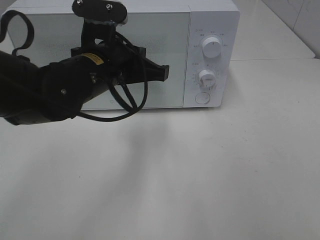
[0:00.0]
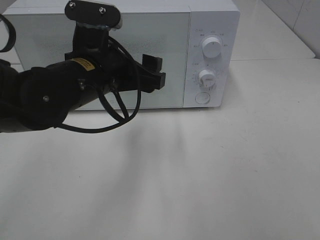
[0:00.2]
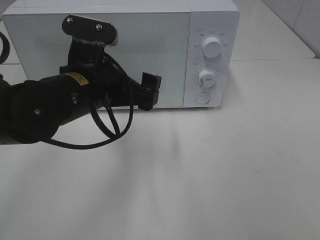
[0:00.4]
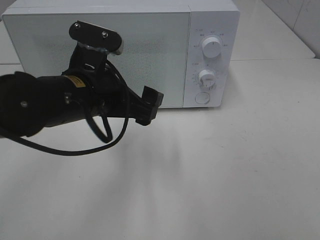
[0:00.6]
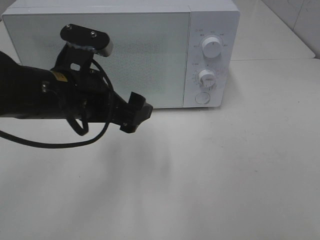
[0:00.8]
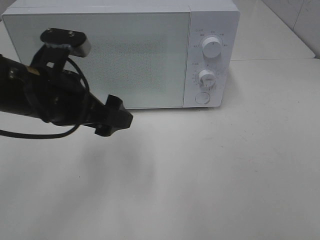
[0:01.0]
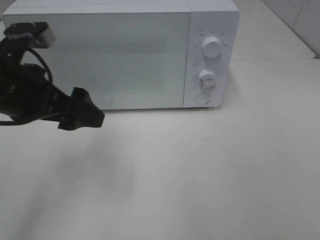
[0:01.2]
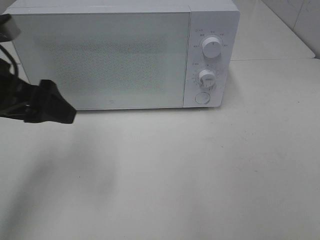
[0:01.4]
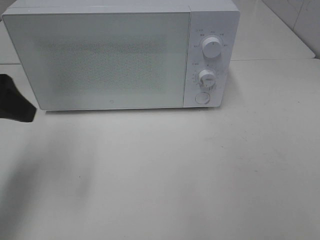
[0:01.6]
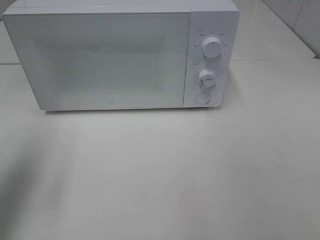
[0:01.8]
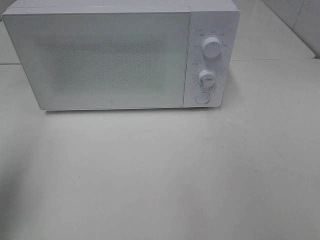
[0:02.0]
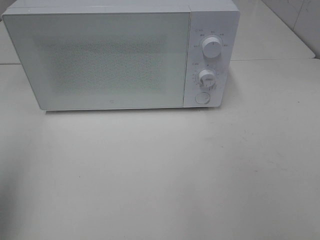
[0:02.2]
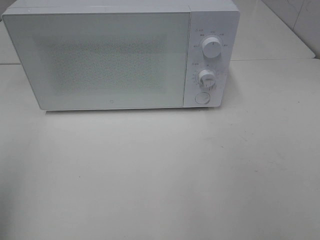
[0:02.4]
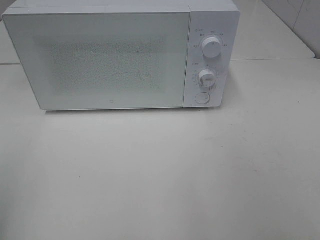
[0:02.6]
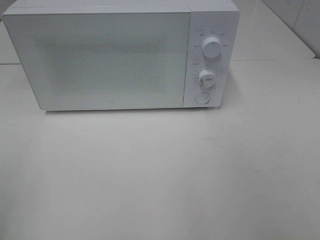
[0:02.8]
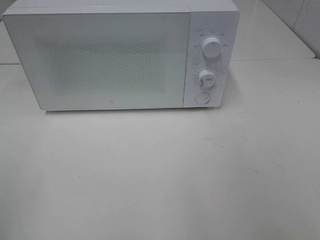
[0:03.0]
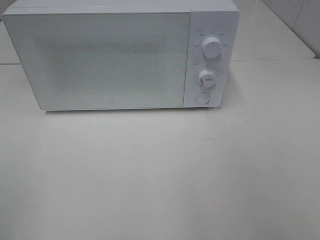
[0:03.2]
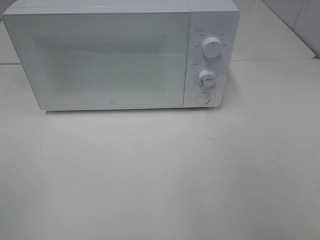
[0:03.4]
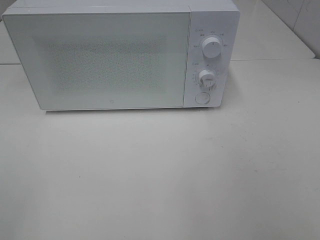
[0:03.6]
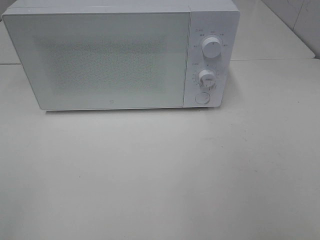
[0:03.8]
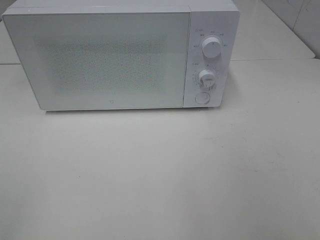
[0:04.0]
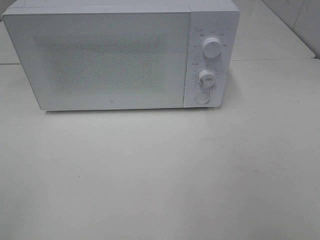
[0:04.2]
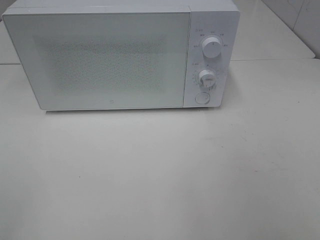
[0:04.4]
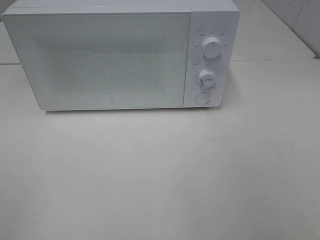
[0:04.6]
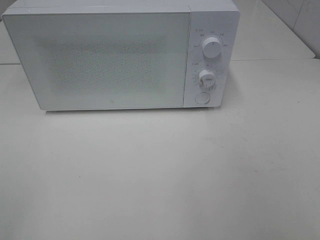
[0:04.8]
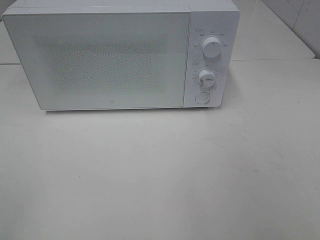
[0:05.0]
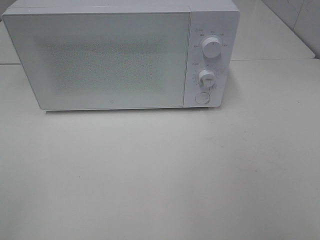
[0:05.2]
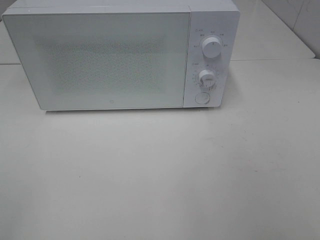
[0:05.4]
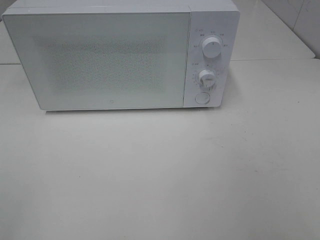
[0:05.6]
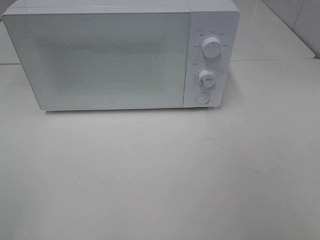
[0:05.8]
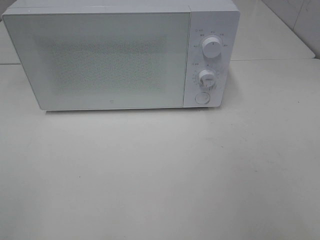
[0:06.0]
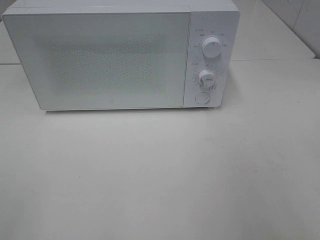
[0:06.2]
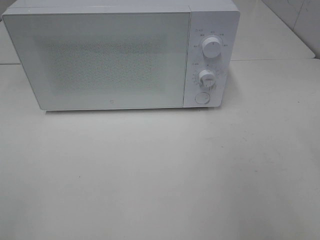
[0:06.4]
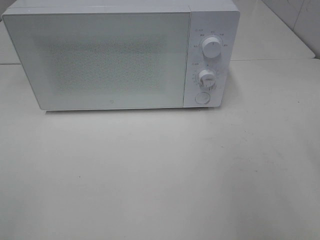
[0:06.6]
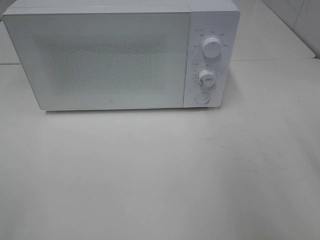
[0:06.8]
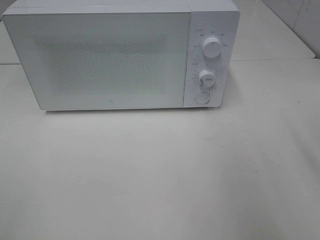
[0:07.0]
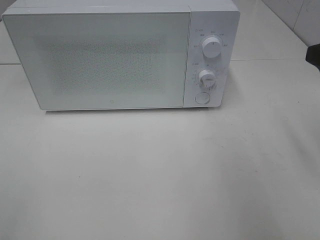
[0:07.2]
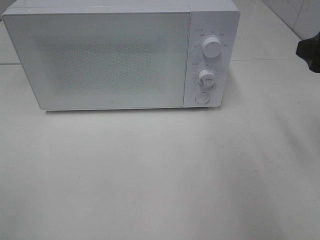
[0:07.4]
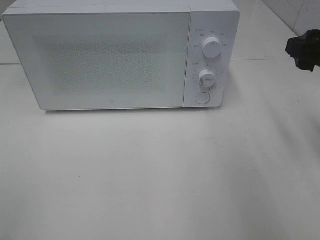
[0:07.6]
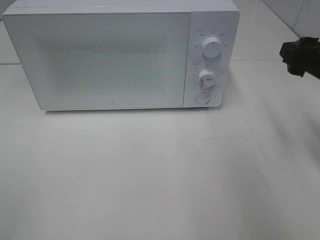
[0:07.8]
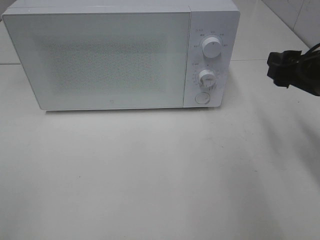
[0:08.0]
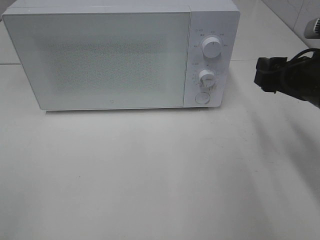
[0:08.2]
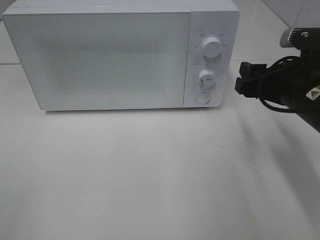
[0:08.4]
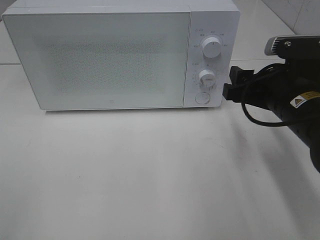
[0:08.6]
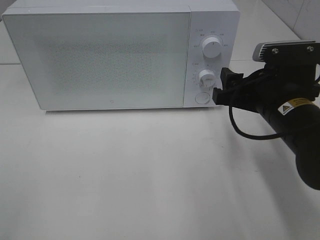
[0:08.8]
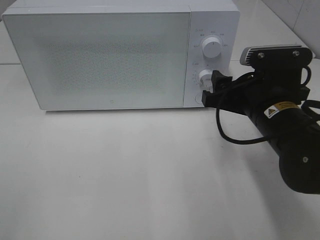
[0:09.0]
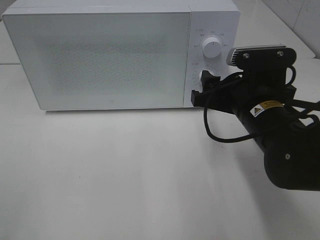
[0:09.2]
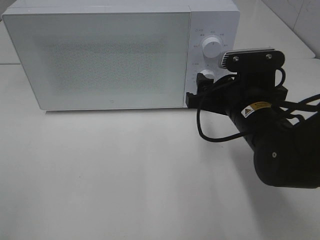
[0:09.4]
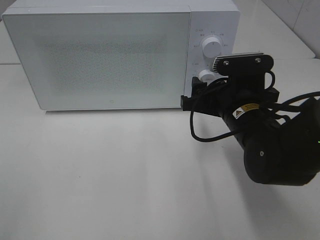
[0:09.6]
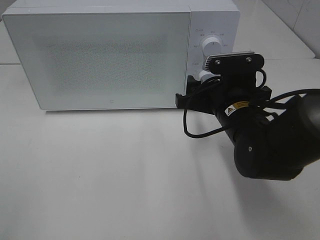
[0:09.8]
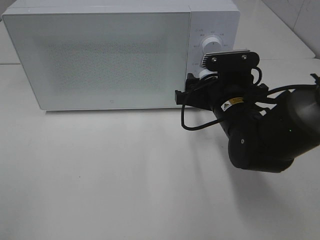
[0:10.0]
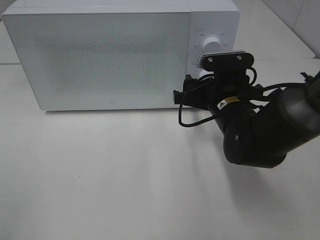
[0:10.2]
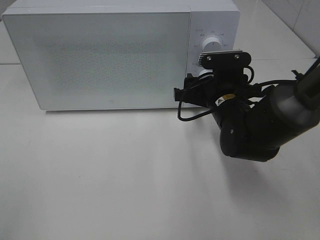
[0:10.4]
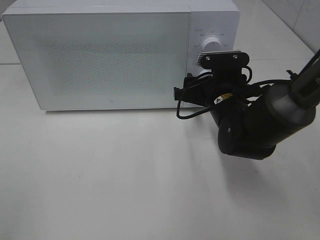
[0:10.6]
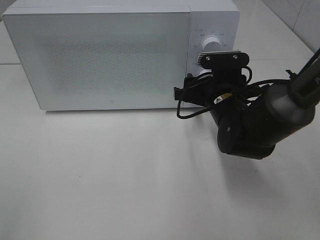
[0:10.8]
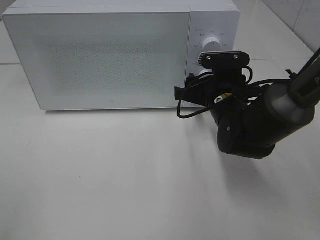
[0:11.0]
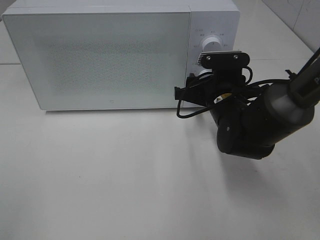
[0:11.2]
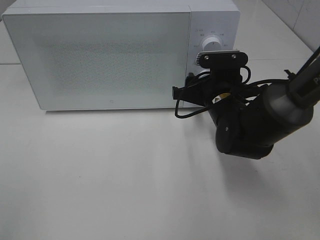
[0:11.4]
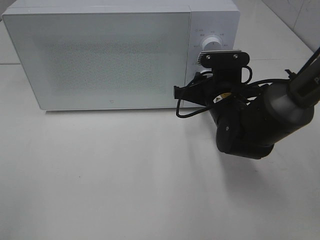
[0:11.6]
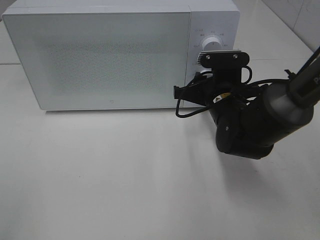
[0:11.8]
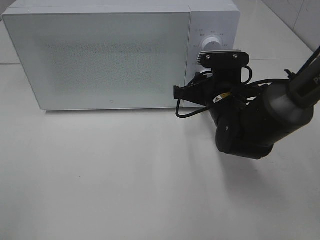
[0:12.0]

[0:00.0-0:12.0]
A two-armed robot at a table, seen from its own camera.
Task of the whole recording: Heat Sandwich.
0:00.0 to 0:01.6: The left gripper moves to the left, roughly 20 cm, and opens its fingers.
0:01.6 to 0:03.0: The left gripper is displaced backward by approximately 20 cm.
0:06.0 to 0:07.6: The right gripper moves forward, roughly 20 cm.
0:07.6 to 0:09.0: The right gripper goes about 15 cm to the left and downward.
0:09.0 to 0:10.4: The right gripper is displaced forward by roughly 10 cm.
0:10.4 to 0:12.0: The right gripper closes.

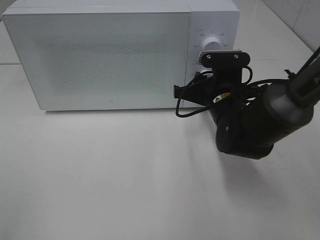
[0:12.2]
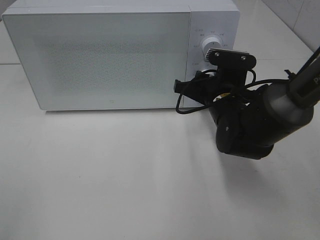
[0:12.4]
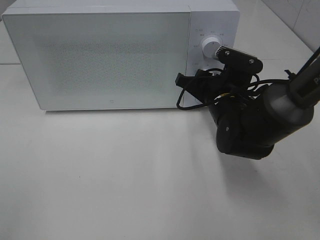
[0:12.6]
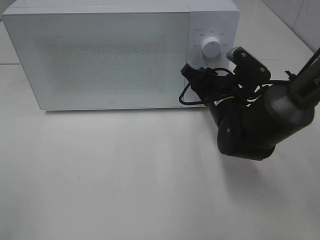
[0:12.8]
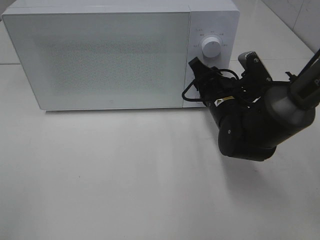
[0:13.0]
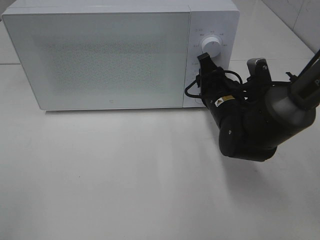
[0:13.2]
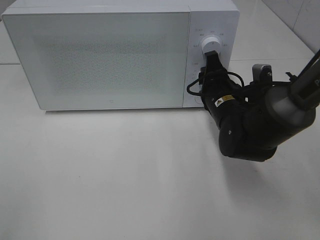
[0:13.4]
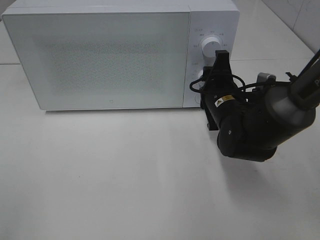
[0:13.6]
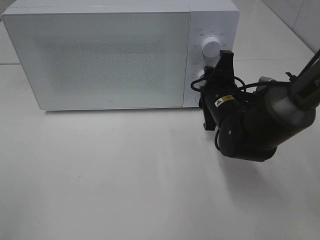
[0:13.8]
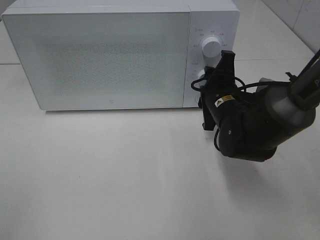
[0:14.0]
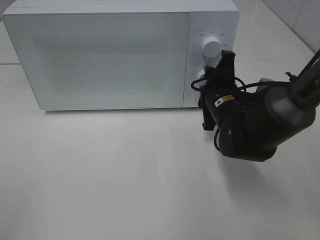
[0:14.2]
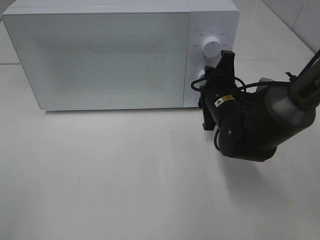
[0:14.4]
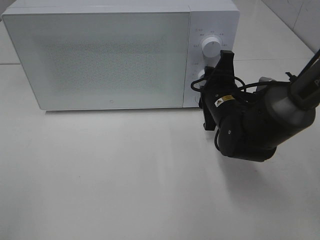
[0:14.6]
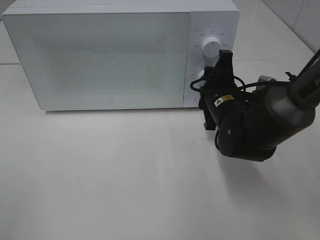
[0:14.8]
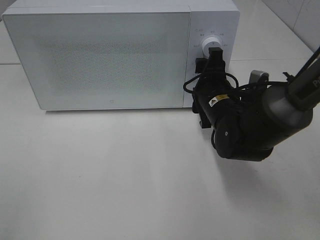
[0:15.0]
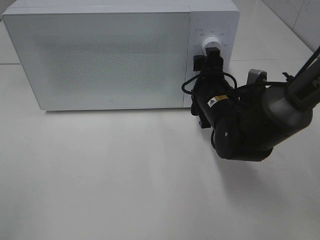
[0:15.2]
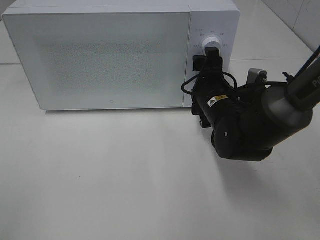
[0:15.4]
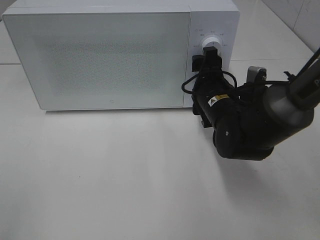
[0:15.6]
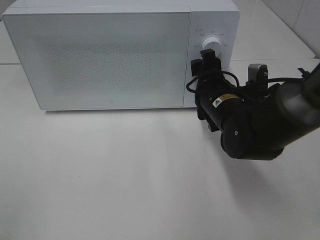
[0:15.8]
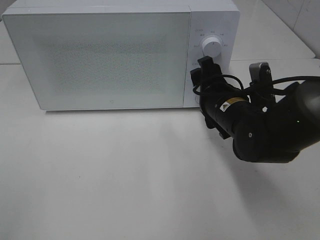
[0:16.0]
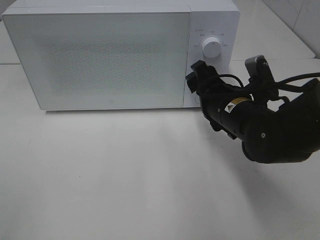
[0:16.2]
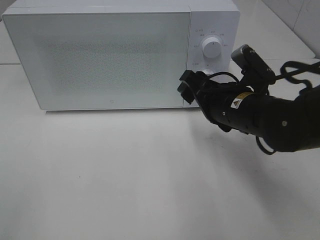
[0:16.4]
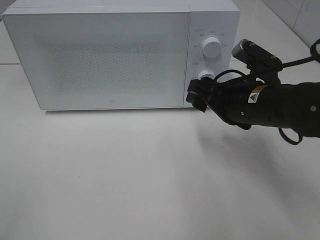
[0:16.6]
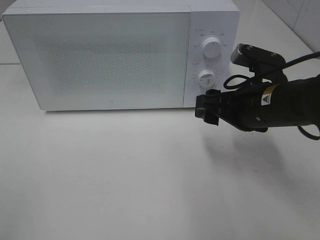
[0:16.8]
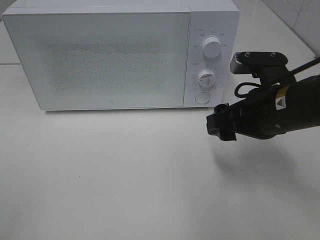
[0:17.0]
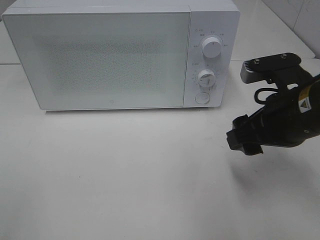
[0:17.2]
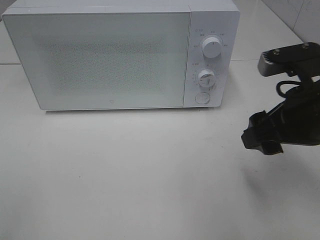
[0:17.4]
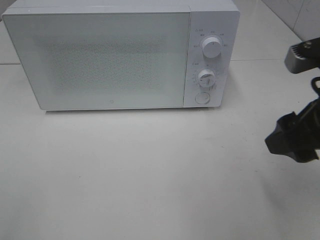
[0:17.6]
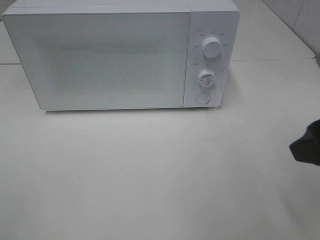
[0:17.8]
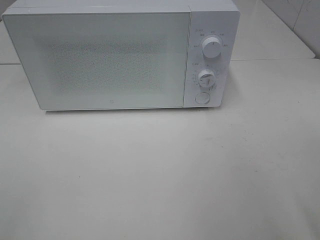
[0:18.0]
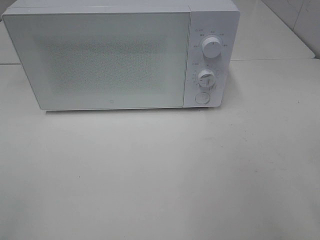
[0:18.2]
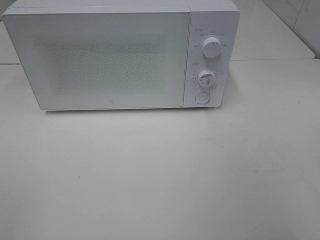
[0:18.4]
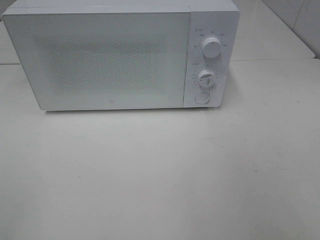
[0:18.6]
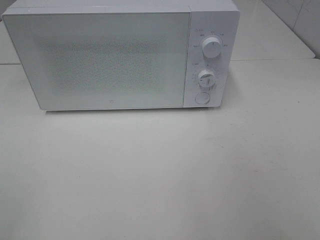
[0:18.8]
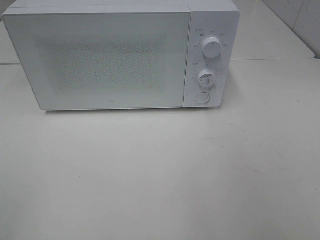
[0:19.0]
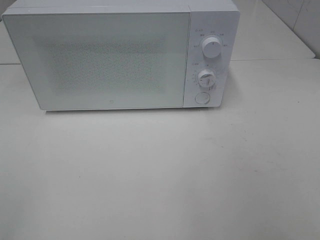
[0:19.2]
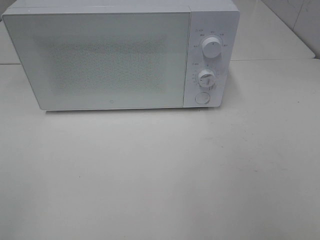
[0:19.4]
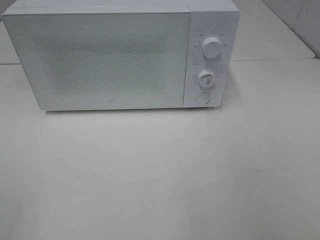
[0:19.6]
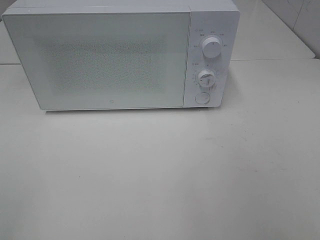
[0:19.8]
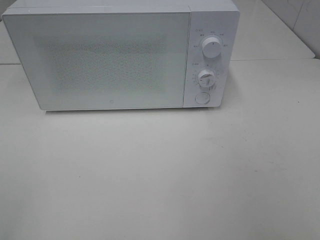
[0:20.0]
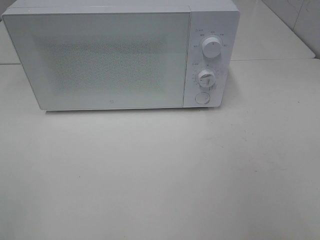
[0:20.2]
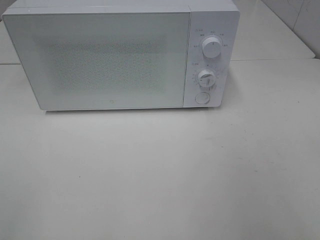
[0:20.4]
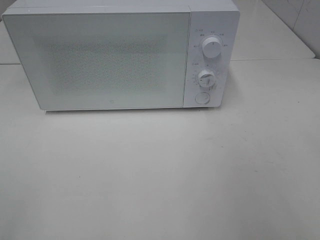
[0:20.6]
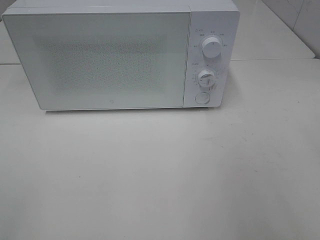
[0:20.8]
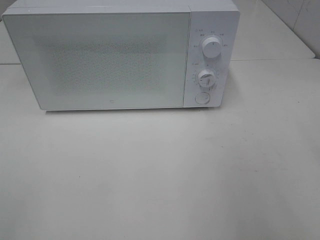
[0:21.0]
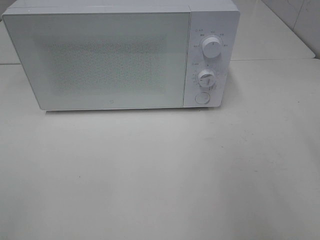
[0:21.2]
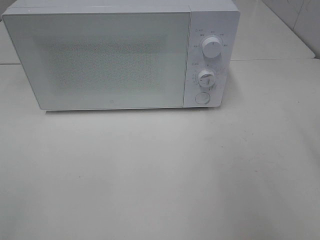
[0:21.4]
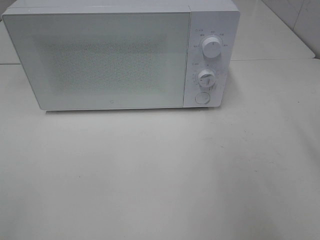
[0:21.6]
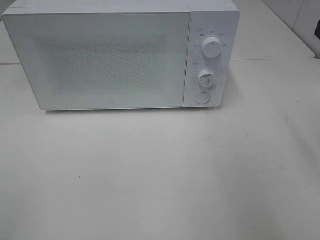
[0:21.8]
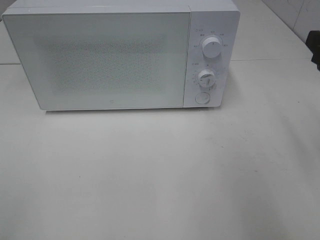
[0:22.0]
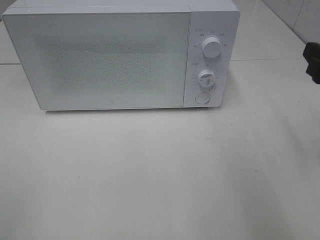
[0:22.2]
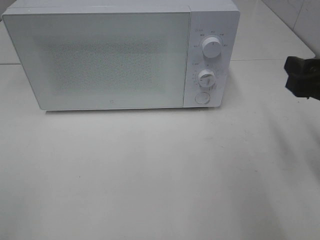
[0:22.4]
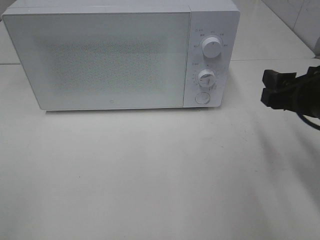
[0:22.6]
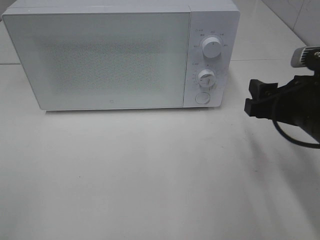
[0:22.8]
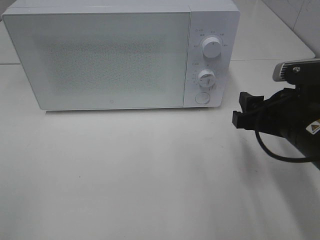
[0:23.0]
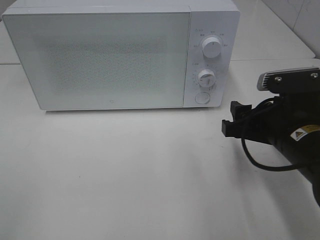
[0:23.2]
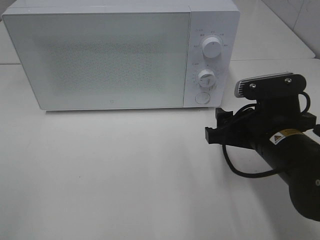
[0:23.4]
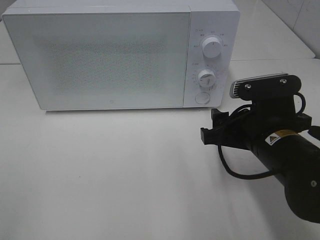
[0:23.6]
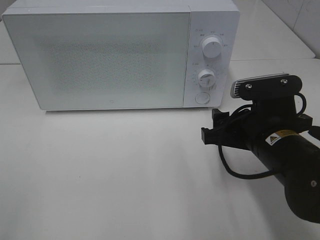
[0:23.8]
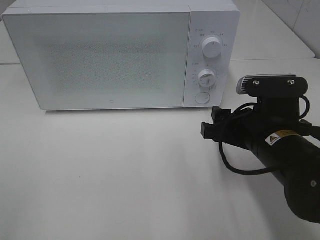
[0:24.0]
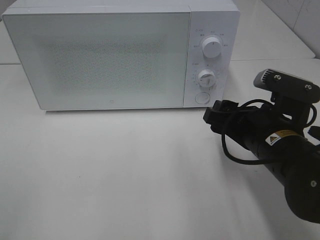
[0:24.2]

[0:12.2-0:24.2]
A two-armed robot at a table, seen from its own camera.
Task of the whole recording: Heat Sandwich.
Step, 0:12.2 to 0:16.2: Right hand: twist timer button.
0:13.8 to 0:15.2: The right gripper opens up.
0:15.2 to 0:16.6: The right gripper goes approximately 5 cm backward.
0:16.6 to 0:18.2: The right gripper shifts approximately 25 cm backward, upward and to the right.
0:21.2 to 0:22.6: The right gripper goes about 15 cm downward and forward.
0:22.6 to 0:24.2: The right gripper goes about 10 cm to the left and downward.
